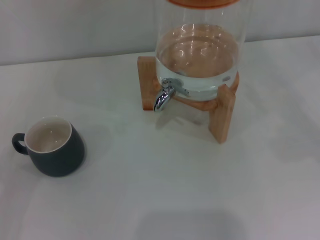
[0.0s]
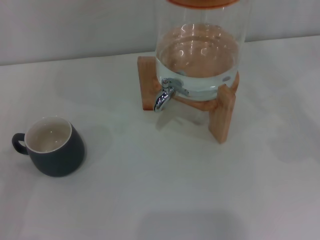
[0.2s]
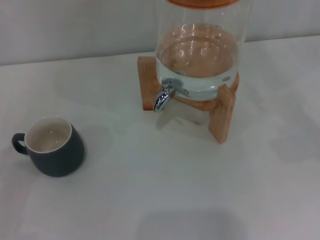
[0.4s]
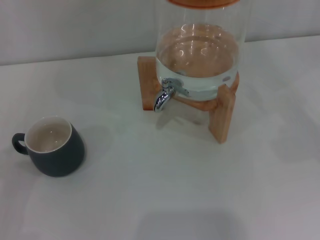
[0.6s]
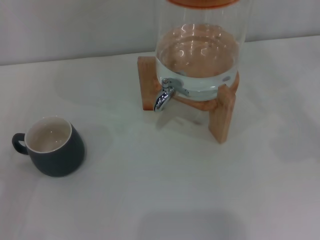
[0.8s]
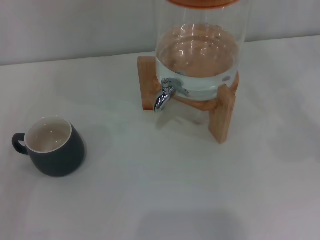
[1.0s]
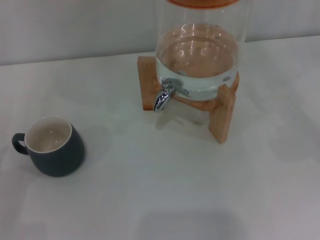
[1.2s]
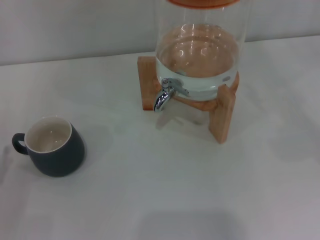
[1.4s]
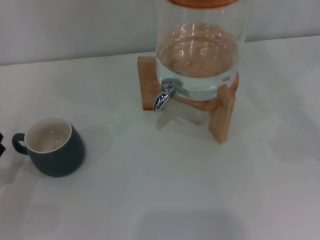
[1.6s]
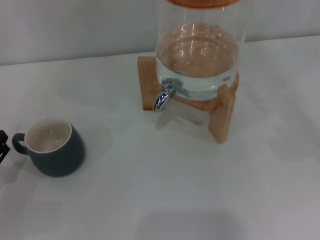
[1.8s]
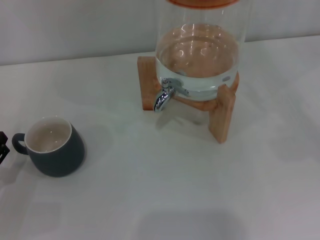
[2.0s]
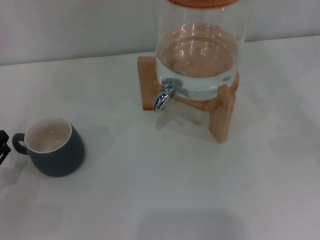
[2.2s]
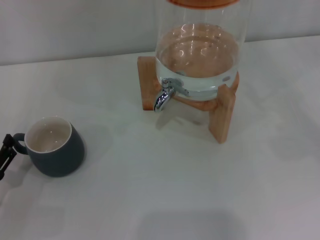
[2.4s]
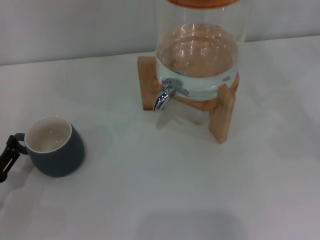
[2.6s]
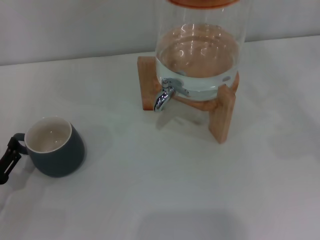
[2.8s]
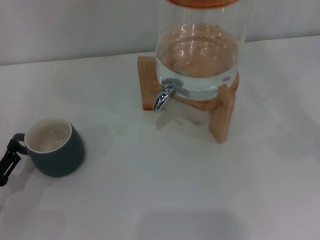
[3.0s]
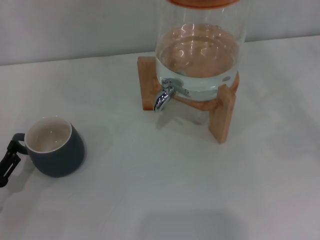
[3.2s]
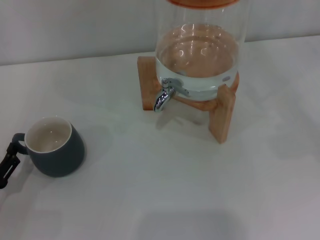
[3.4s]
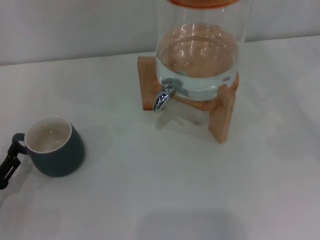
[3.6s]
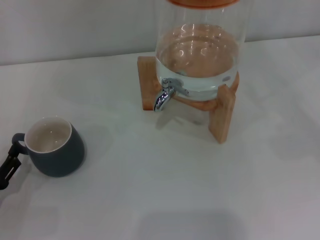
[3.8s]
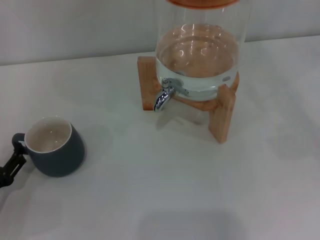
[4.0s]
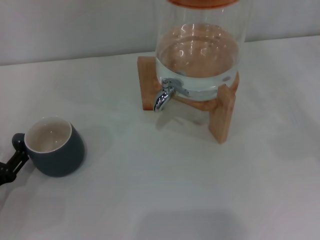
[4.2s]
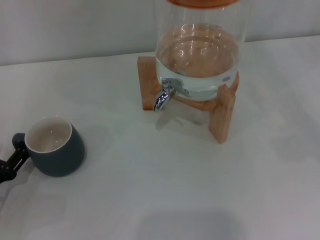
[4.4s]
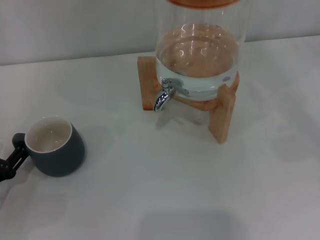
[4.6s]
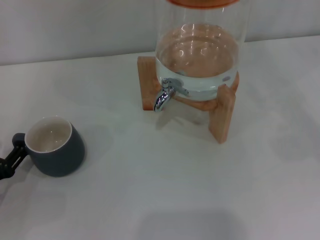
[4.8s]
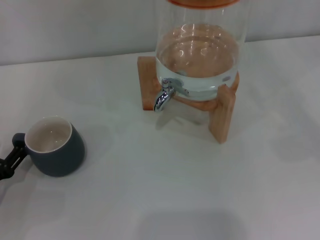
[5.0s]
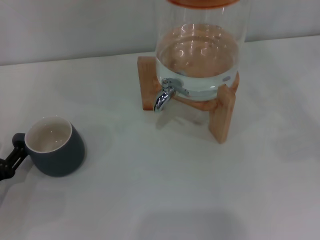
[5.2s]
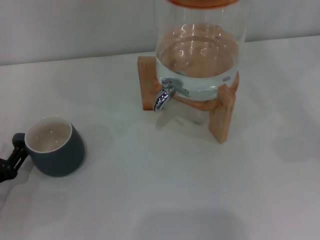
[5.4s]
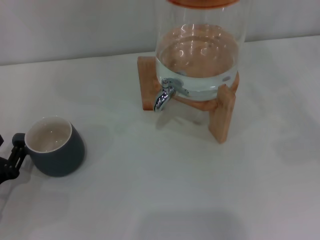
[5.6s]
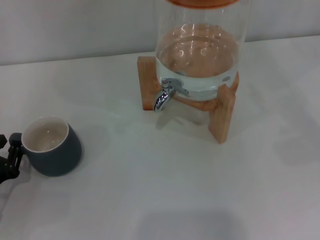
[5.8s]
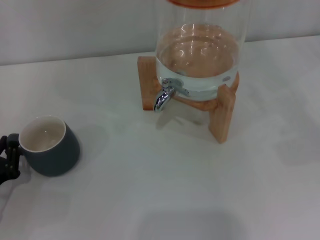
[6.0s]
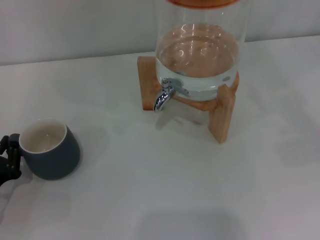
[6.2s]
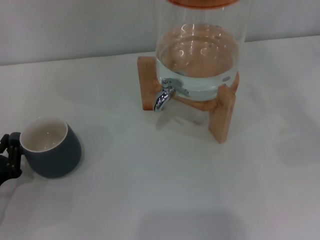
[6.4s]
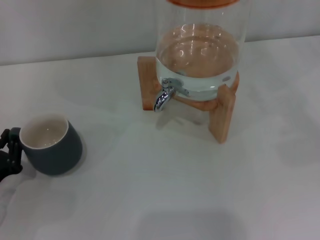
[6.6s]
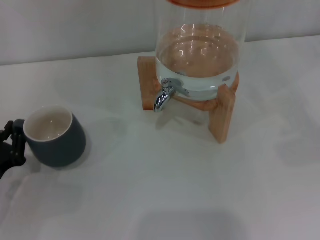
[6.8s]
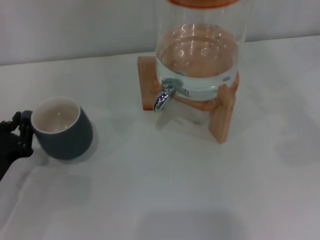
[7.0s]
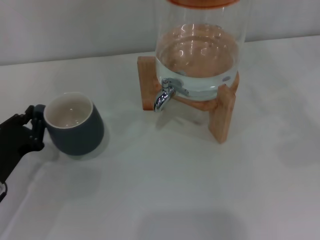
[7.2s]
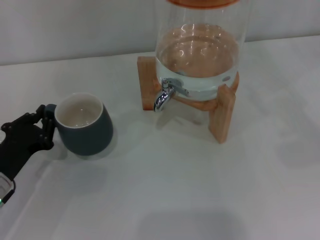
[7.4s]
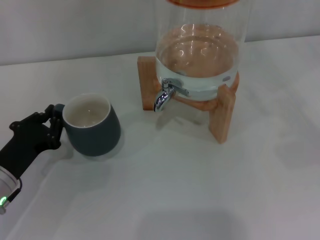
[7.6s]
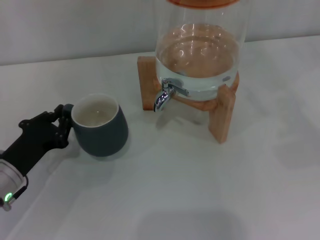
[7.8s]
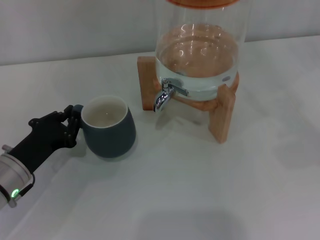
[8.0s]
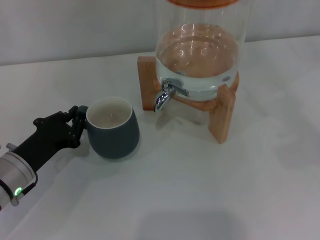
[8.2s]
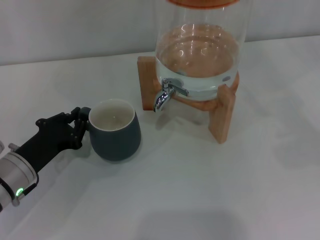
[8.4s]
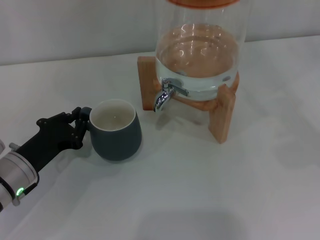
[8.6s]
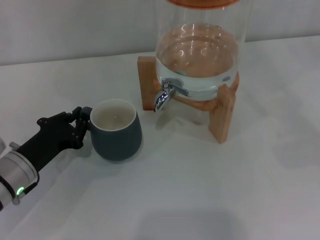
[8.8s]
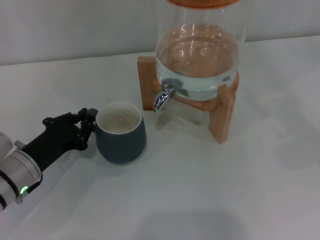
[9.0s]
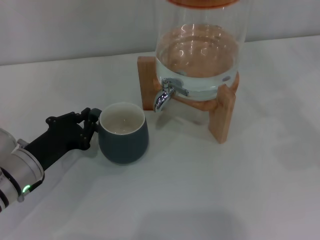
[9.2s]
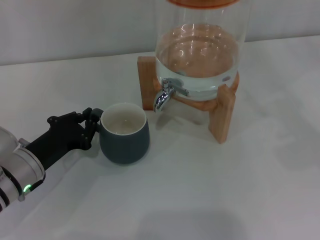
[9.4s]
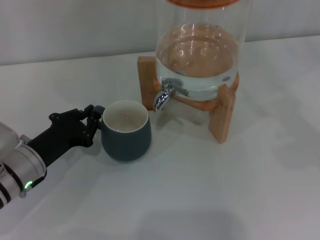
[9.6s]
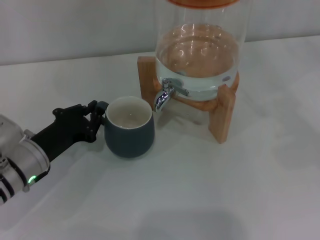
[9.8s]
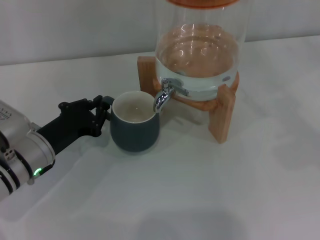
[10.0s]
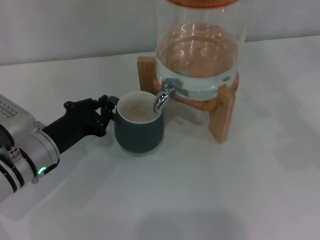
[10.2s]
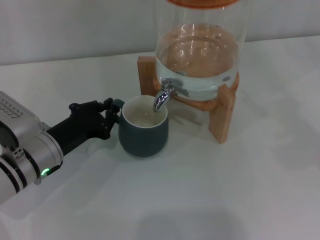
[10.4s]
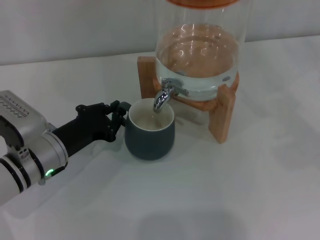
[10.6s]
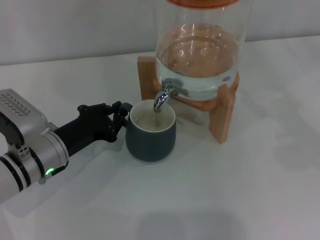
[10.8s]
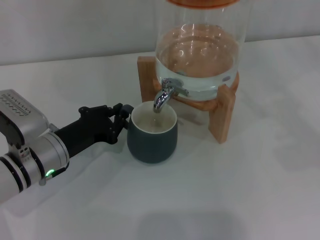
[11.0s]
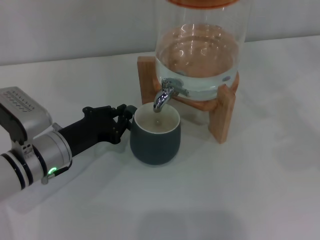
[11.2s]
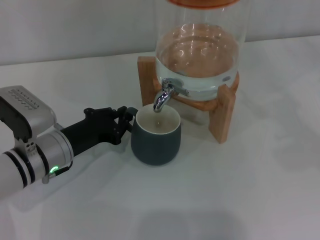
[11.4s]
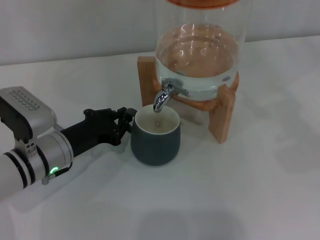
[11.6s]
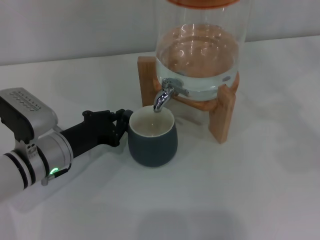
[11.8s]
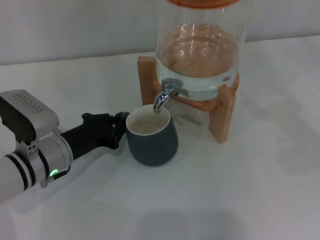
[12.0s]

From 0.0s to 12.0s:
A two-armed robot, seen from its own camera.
Task of the whole recording: the left gripper pick up the black cup and place it horizontally under the faucet, the right gripper turn on the faucet to fill the cup, and then turn off the faucet.
From 4.4s to 6.0s: The left gripper closes its fingers.
From 6.0s to 7.6s: The left gripper shifts by approximately 5 cm.
From 7.6s to 9.0s: The grippers move only a little.
From 9.0s to 12.0s: The grippers stay close to where they were, moving slightly.

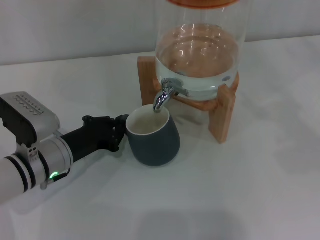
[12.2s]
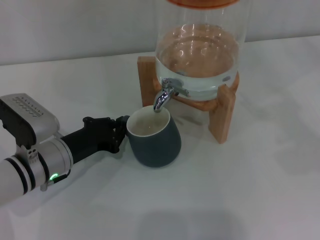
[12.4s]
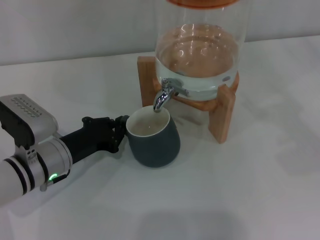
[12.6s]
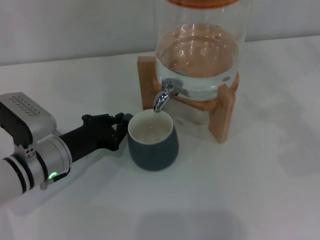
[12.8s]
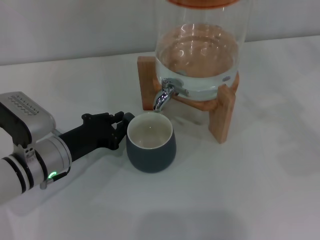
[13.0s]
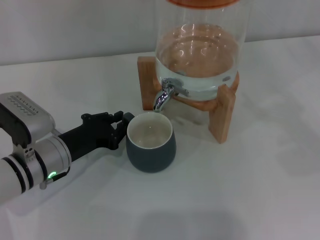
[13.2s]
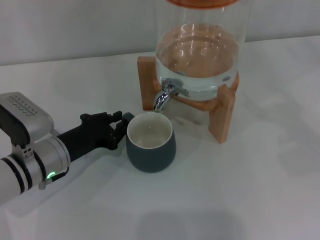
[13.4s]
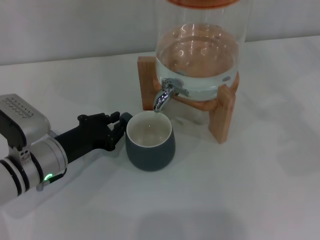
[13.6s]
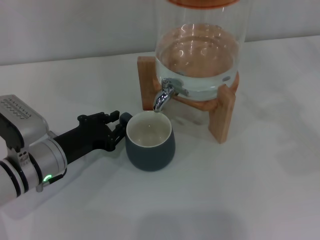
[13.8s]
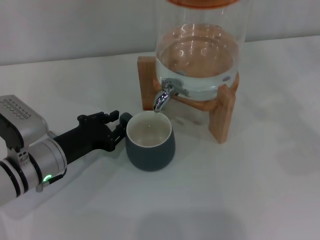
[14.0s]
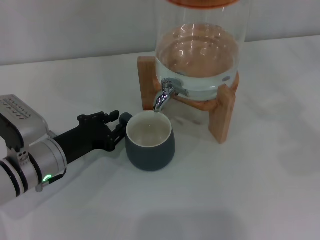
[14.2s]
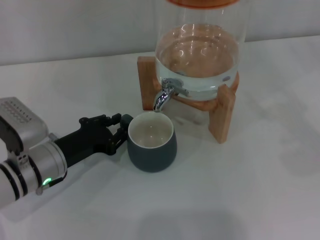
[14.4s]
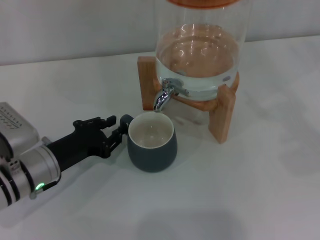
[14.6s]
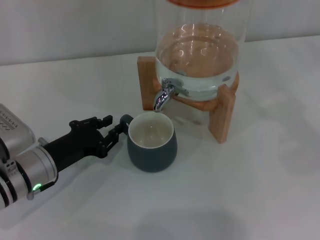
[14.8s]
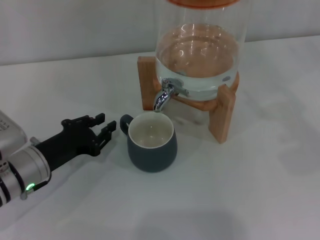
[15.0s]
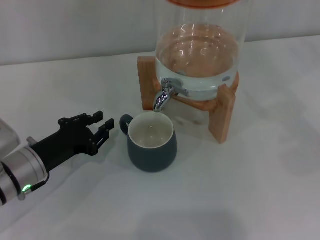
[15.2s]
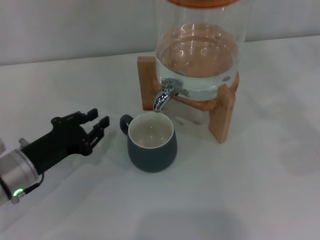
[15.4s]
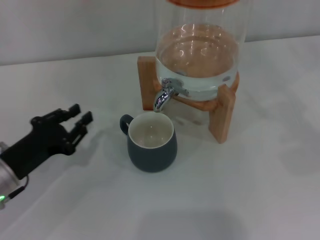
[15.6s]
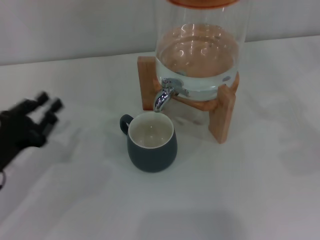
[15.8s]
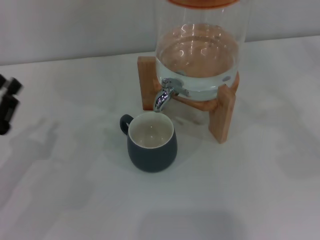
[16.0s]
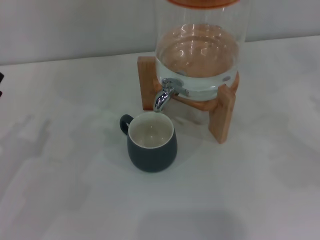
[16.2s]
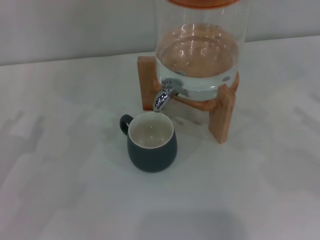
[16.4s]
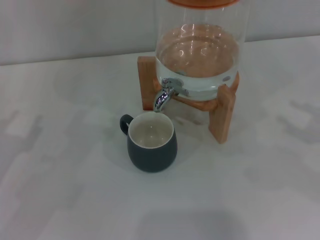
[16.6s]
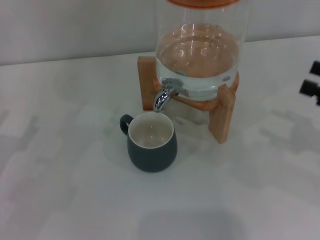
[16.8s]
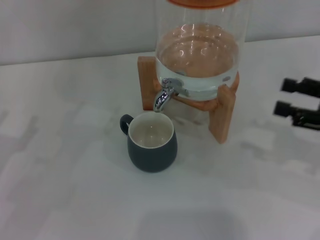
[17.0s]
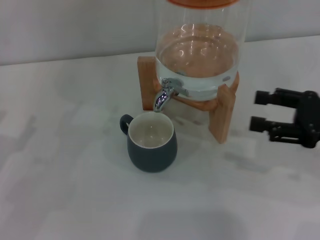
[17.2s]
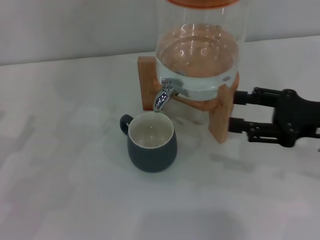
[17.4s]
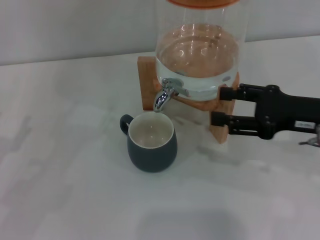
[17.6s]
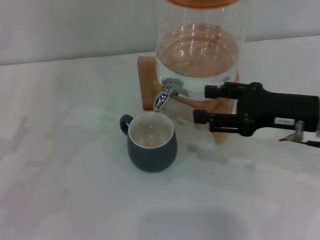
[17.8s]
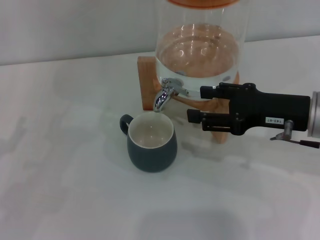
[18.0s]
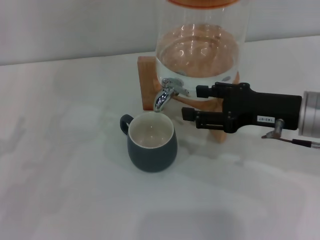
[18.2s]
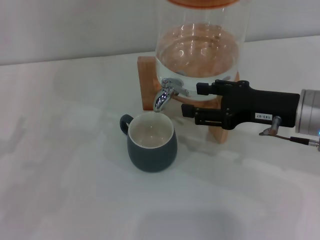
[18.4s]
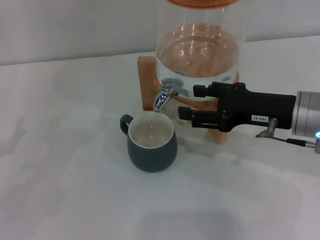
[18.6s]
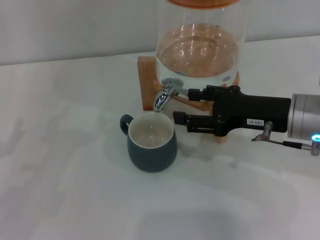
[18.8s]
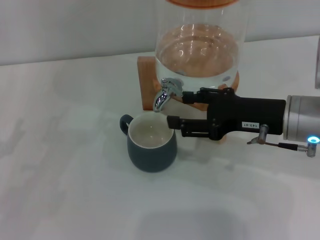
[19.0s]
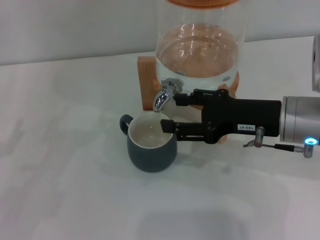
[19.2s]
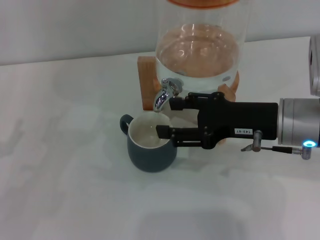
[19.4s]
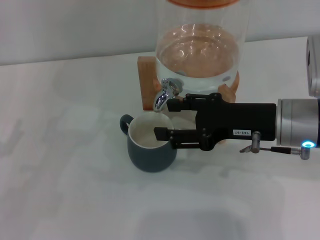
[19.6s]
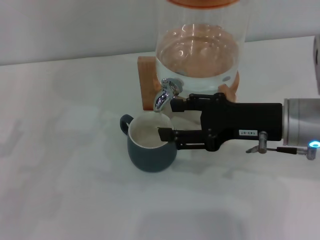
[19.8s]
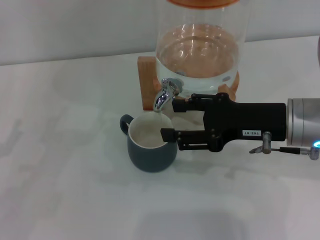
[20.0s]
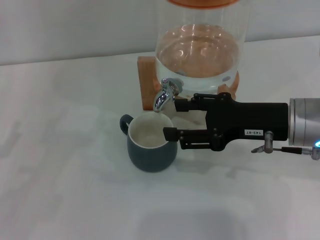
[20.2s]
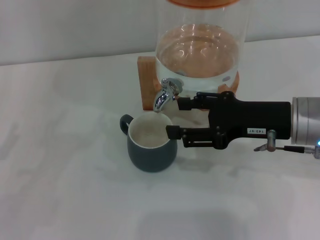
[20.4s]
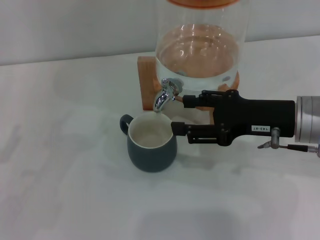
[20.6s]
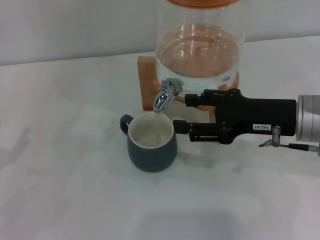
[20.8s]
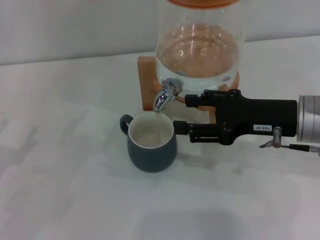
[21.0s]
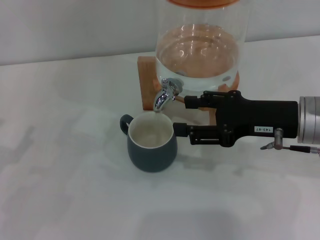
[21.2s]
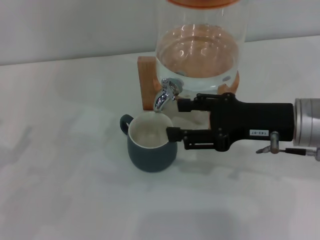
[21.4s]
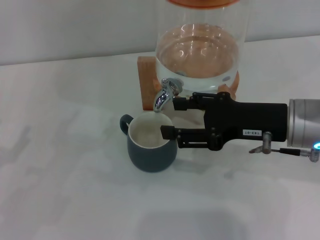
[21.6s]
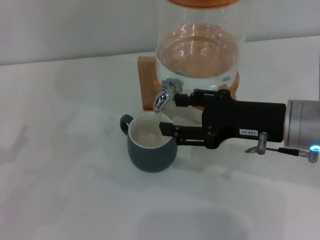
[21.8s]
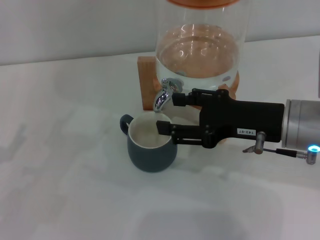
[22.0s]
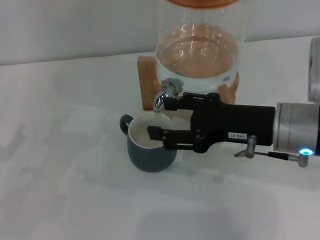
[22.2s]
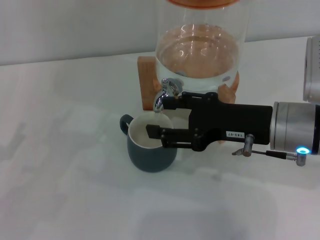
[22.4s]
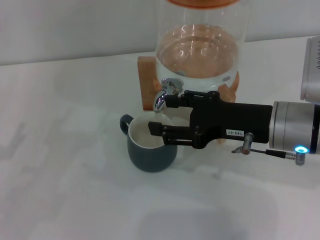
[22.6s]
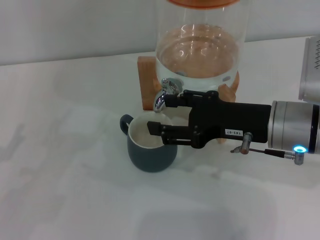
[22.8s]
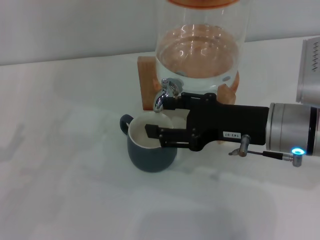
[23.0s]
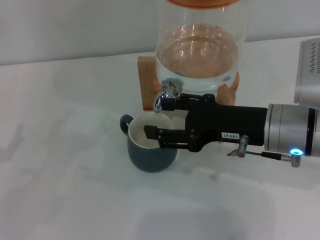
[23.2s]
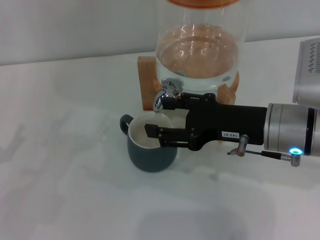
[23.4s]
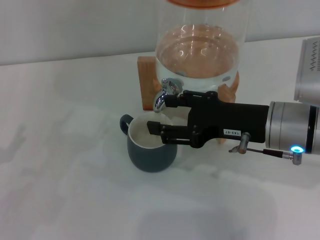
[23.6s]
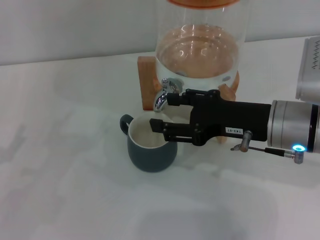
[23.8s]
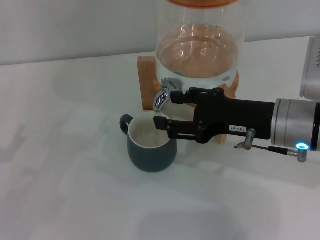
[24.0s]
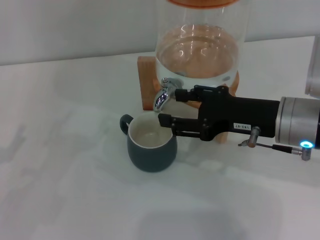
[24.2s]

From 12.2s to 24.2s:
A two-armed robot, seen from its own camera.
Task of the whole recording: the left gripper pick up the black cup and place it horizontally under the faucet, the right gripper turn on the faucet to fill the cup, and then turn off the faucet.
Step, from 12.2s to 15.2s: Move the cup beneath the water dispenser nozzle with the left gripper.
Step, from 15.4s to 20.4s: Open the dispenser valve and fill the cup with water with the right gripper.
From 12.2s to 13.8s: Neither gripper changes place.
From 13.8s to 15.2s: The grippers move only a little.
From 15.2s to 16.6s: The left gripper goes approximately 10 cm to the left.
From 16.6s to 18.2s: The left gripper opens. The right gripper goes approximately 15 cm to the left.
From 18.2s to 22.6s: The grippers make only small movements.
From 22.6s to 24.2s: Both grippers stay about where they are.
